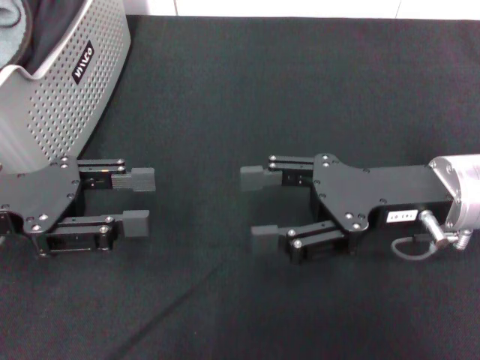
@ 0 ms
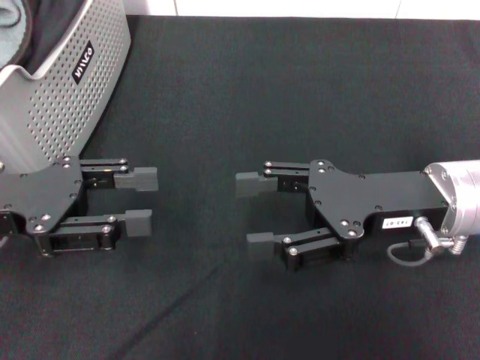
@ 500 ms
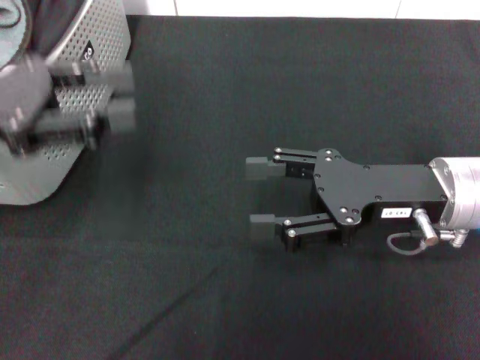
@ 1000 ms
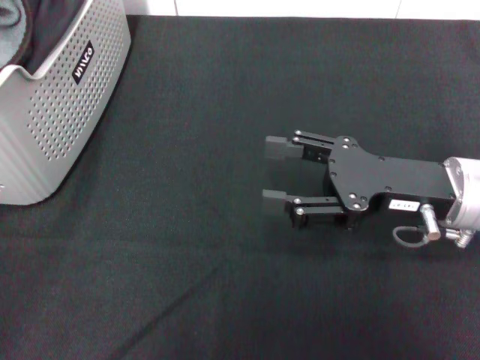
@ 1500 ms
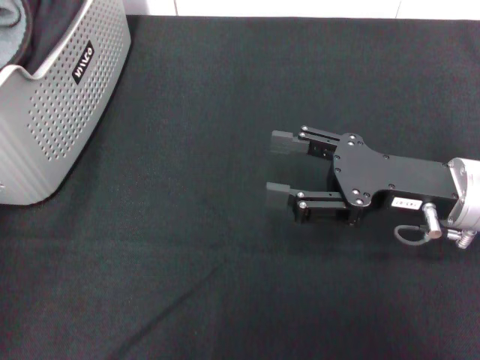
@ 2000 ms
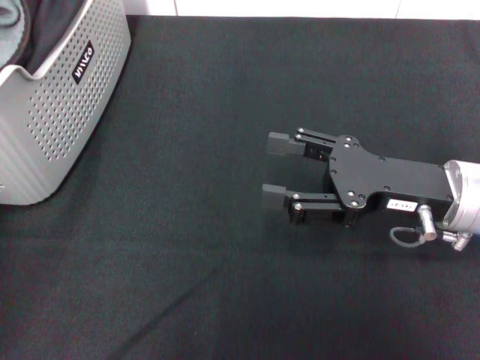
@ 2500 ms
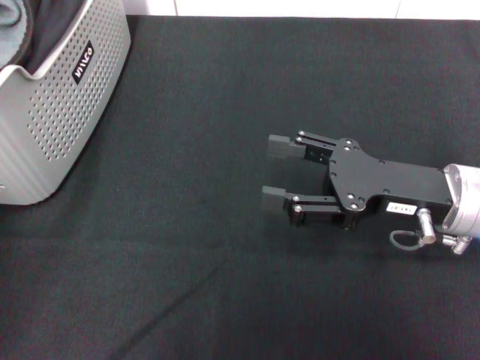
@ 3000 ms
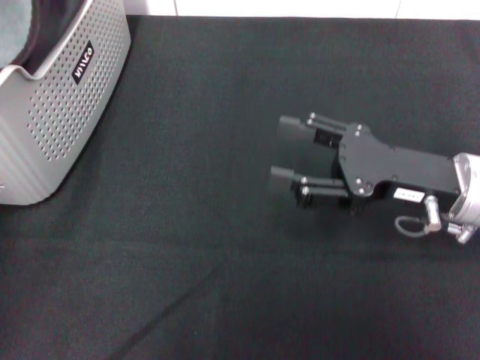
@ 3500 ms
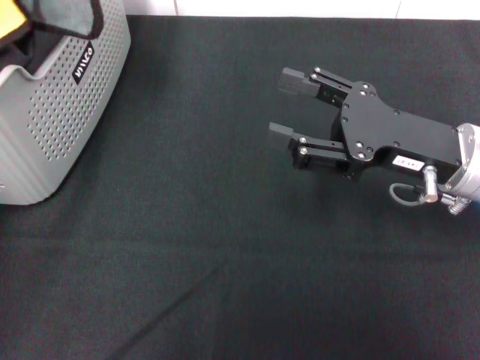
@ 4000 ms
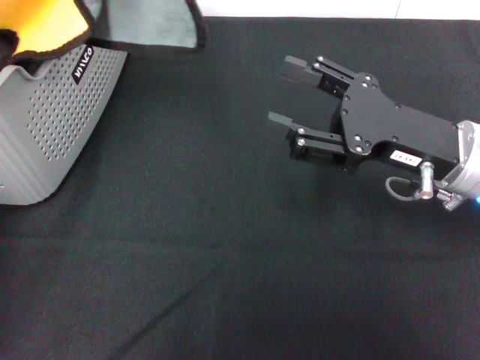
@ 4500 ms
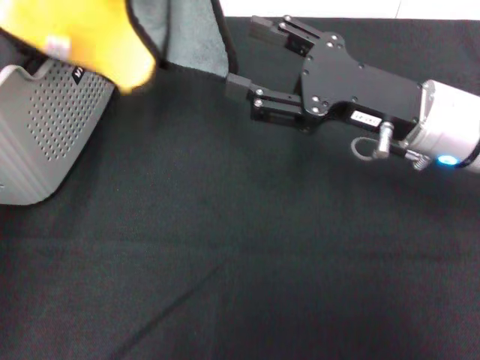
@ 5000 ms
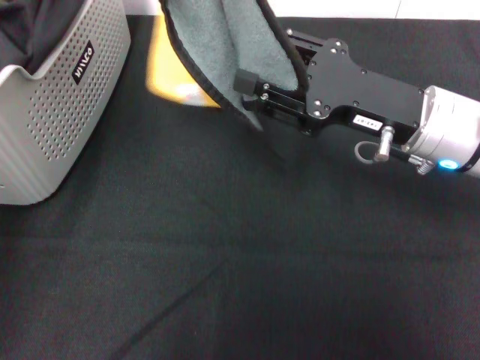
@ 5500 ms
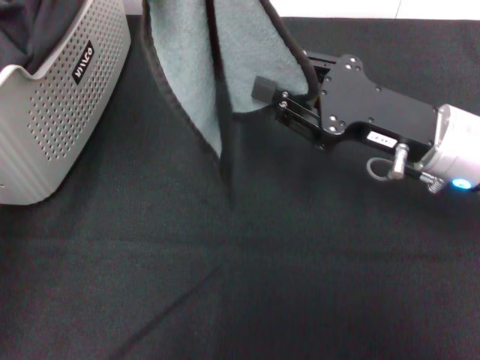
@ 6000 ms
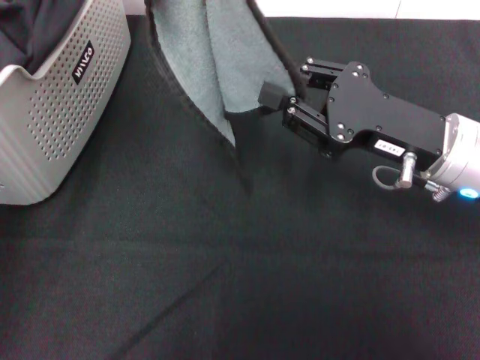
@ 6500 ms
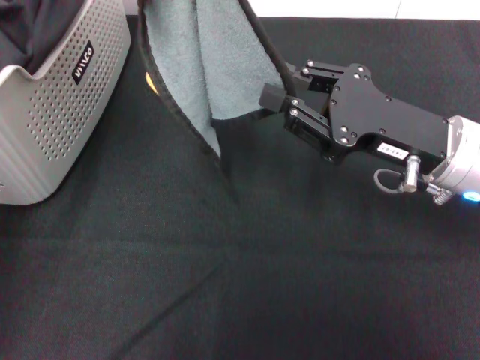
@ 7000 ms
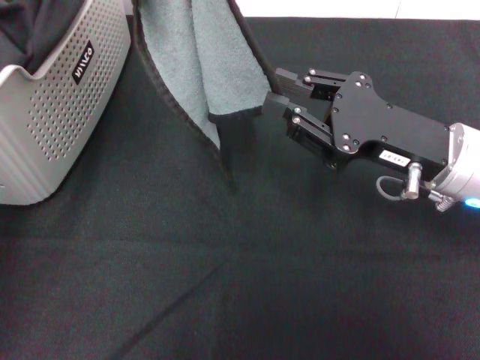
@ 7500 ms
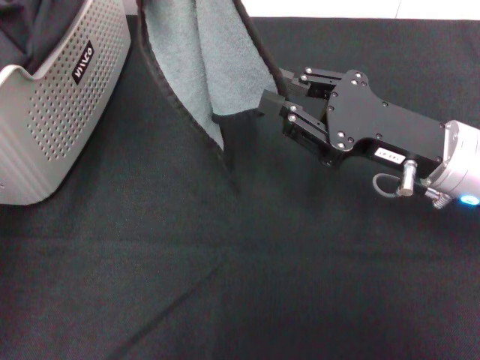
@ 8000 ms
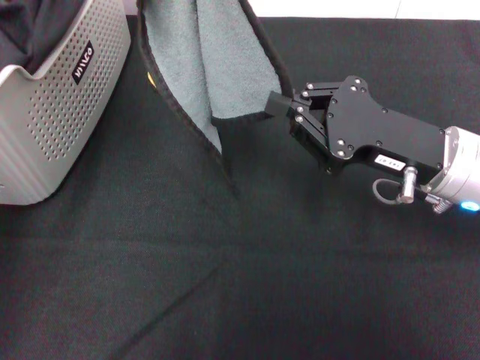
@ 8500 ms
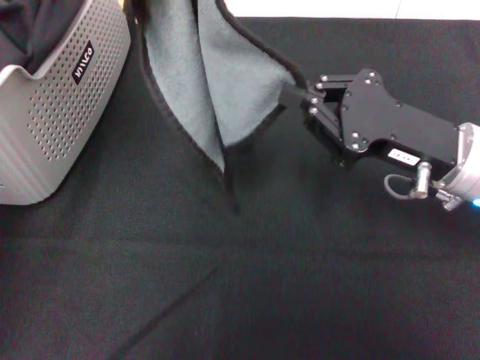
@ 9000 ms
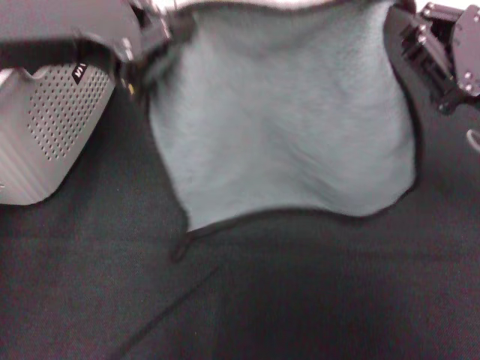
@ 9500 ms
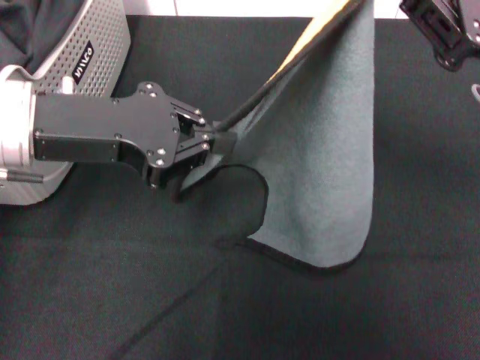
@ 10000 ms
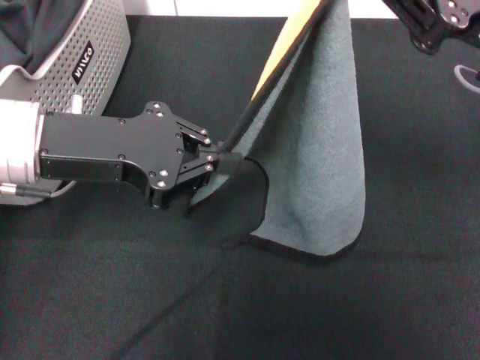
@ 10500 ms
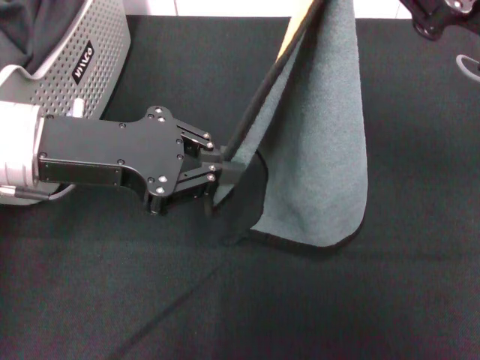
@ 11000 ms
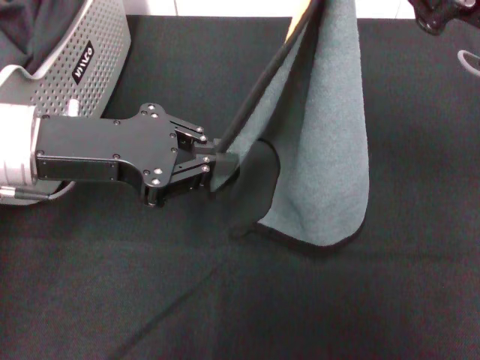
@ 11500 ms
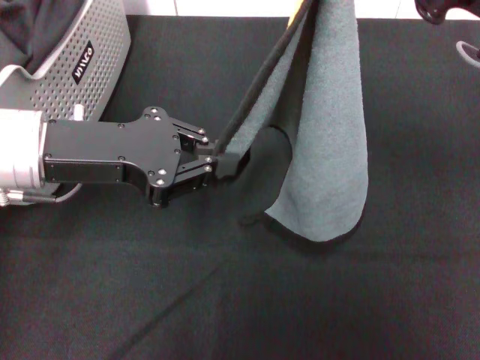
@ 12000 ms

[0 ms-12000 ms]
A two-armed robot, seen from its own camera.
Task of the whole recording: pick up the towel from the storage box and lay it flat on the black tablecloth.
Step, 0 ms to 3000 ms: Pick up a towel with the left gripper.
Step, 3500 ms to 8500 ms: Spread the towel flat with the left gripper.
0 ms to 2000 ms: The left gripper goes about 15 cm upward and forward.
2000 ms to 4000 ms: The left gripper heads to the right and upward, covering some 10 cm, and closes.
4000 ms to 6000 ms: The right gripper closes its fingers.
6000 ms to 8000 ms: The grippers stay close to where they were, moving slightly.
8000 ms to 10000 ms: The right gripper shifts approximately 10 cm upward. Meanwhile the left gripper heads downward, covering some 15 cm.

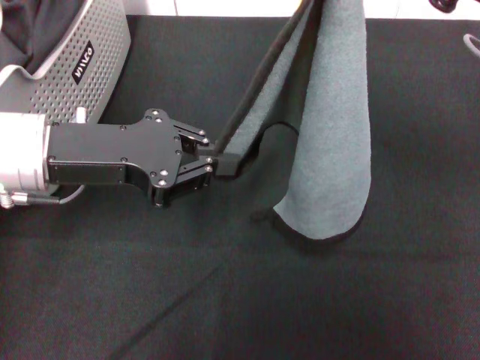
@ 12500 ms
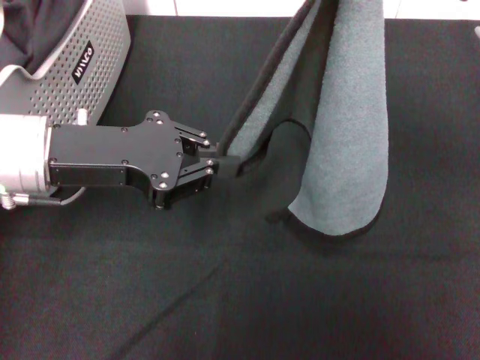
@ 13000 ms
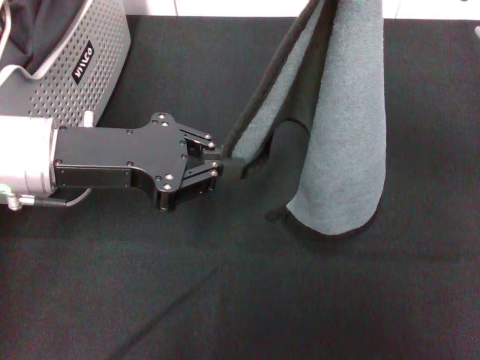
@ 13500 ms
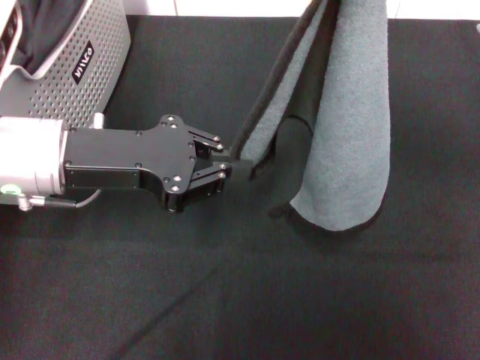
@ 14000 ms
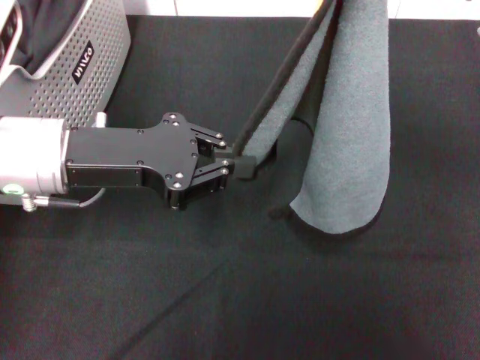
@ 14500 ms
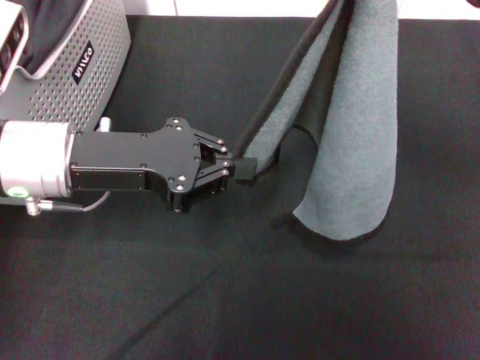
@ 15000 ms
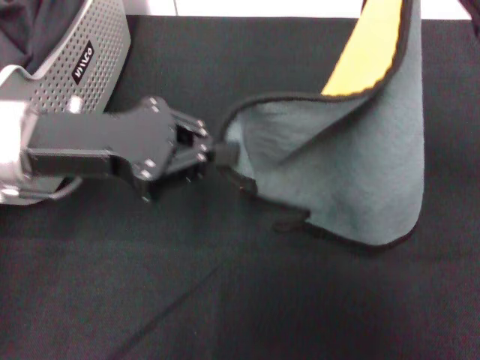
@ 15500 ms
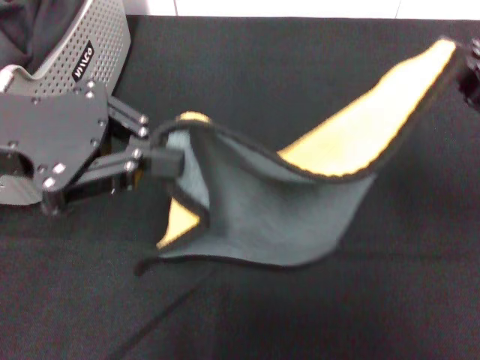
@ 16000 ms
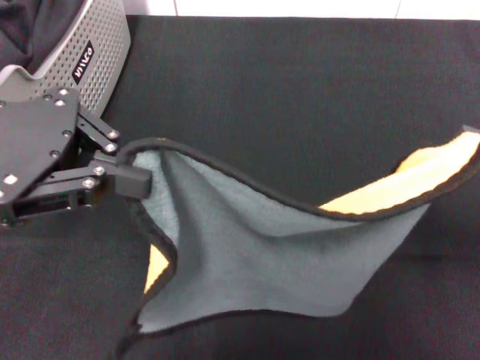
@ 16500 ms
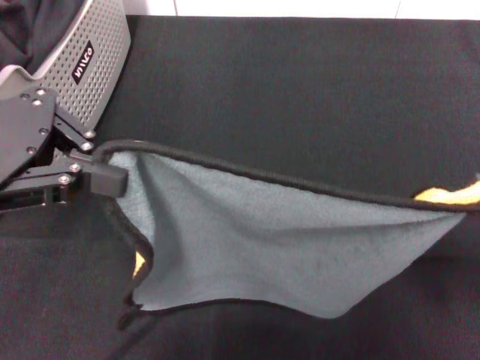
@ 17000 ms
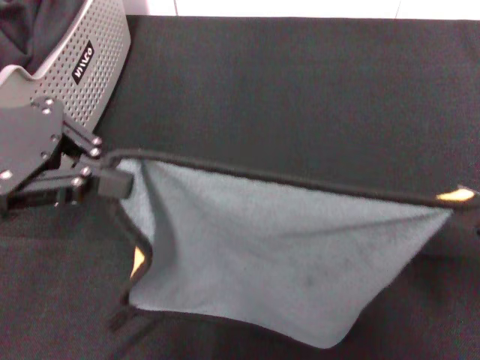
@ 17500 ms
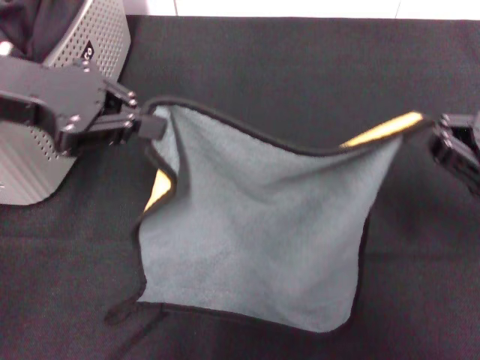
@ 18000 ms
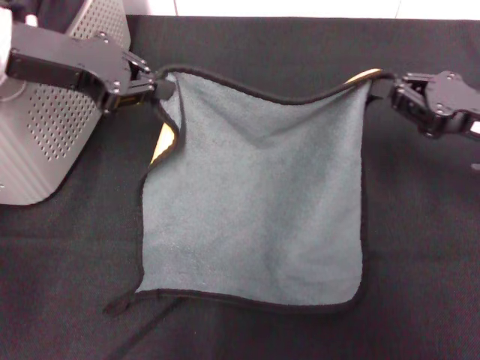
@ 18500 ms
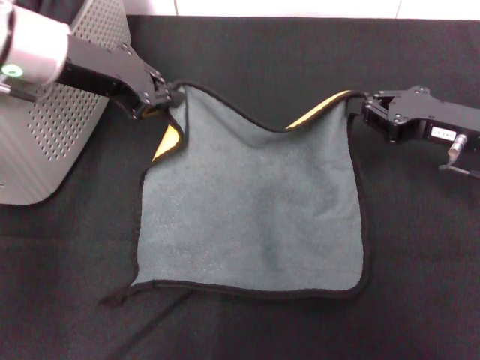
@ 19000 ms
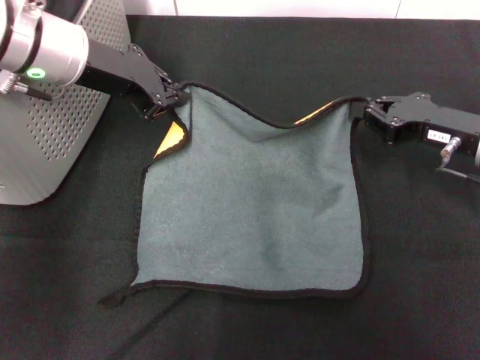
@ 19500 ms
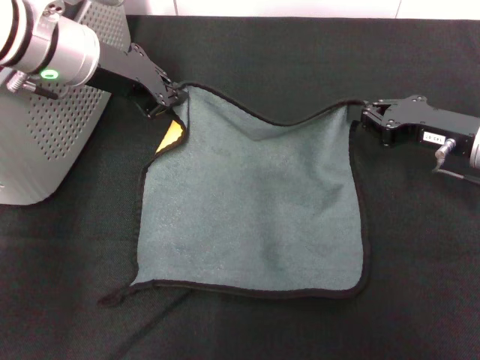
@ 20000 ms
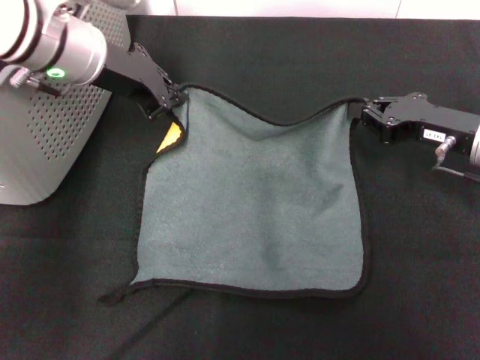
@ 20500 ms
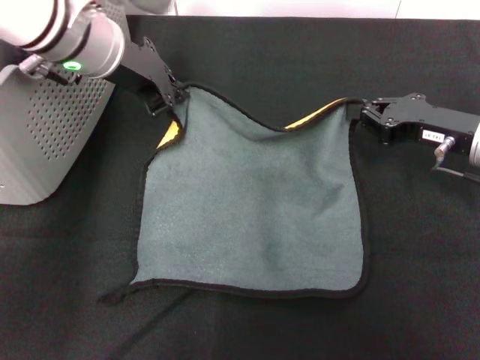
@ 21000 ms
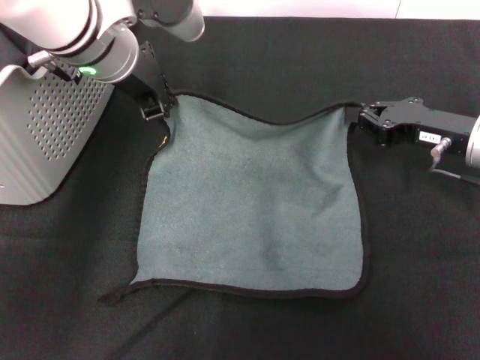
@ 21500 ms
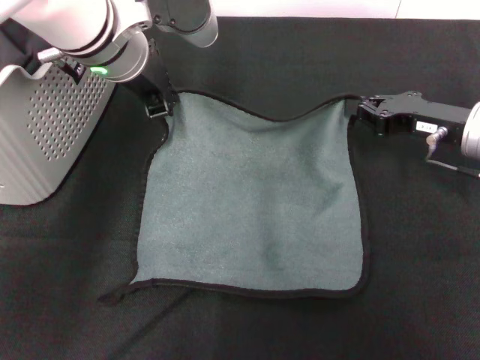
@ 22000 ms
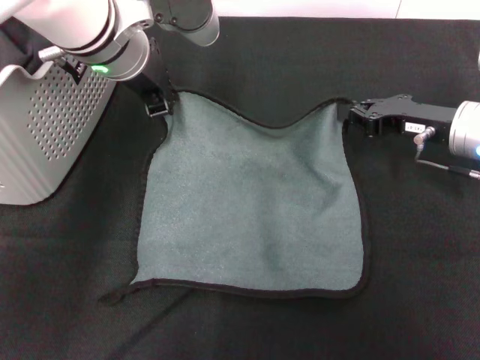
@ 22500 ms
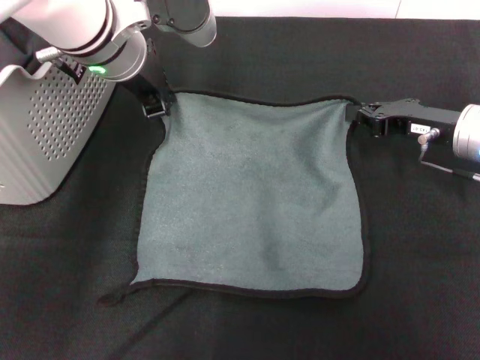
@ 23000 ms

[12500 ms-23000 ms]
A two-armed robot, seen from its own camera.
Task of the whole recording: pick up the towel from the storage box and lay it flat on the black tablecloth.
12500 ms to 14500 ms: The grippers make only small movements.
14500 ms to 16500 ms: The right gripper shifts approximately 15 cm backward, downward and to the right. The left gripper moves upward and to the left, roughly 10 cm.
16500 ms to 19000 ms: The two grippers go some 10 cm forward and downward.
19000 ms to 21000 ms: The left gripper moves to the right, some 5 cm.
21000 ms to 23000 ms: The grippers move only a little.

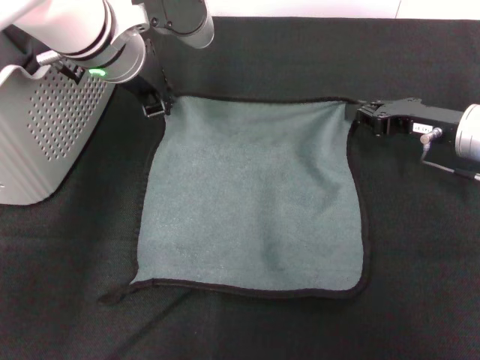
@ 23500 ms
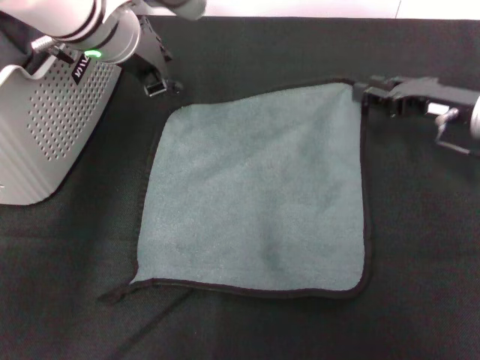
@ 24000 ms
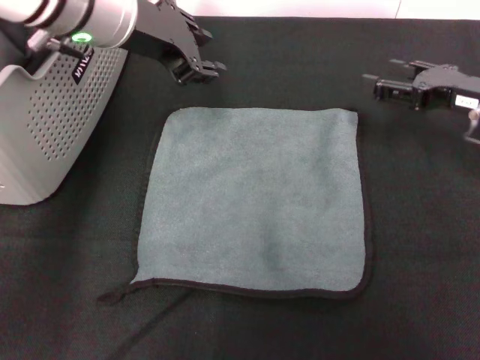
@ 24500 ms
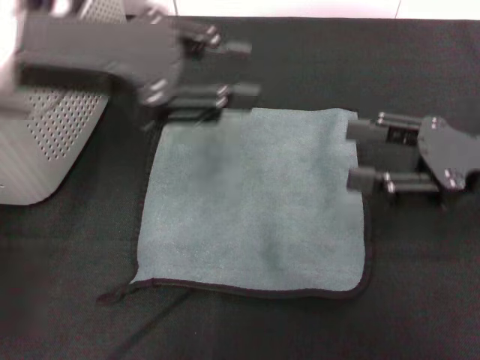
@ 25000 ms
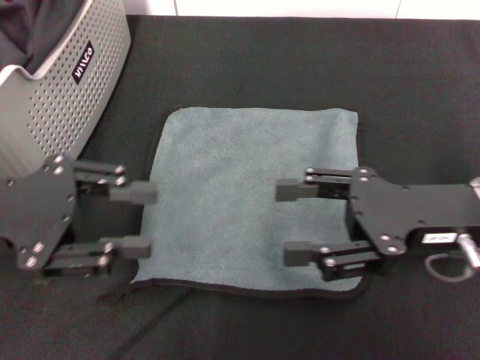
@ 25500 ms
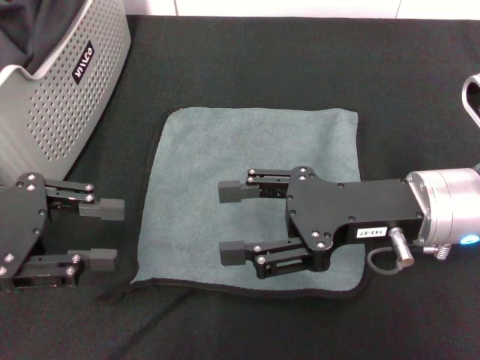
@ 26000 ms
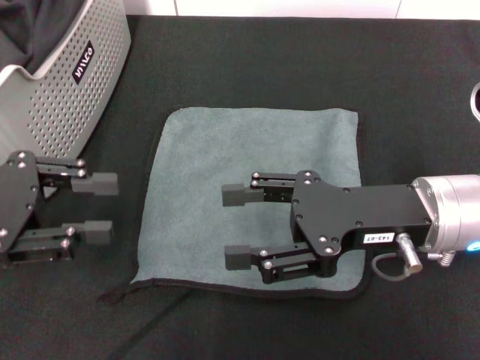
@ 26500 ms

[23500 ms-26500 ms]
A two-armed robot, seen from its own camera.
Task of the whole recording: pick up the towel from the storage box and lay it flat on the black tablecloth.
23500 ms to 25000 ms: The right gripper heads backward and upward, covering about 10 cm, and opens its fingers. Meanwhile the left gripper goes roughly 15 cm backward, upward and to the left, and opens up.
25000 ms to 26500 ms: The right gripper shifts about 10 cm to the left. Meanwhile the left gripper shifts roughly 15 cm to the left, downward and backward.
